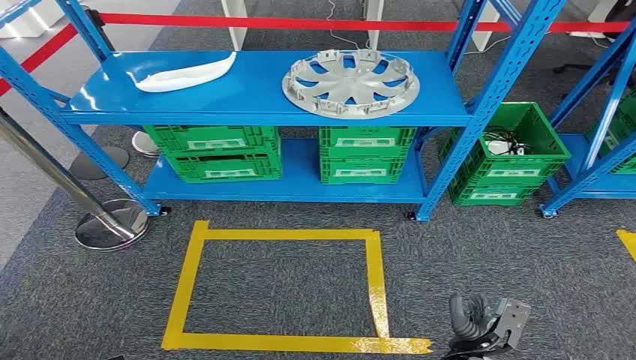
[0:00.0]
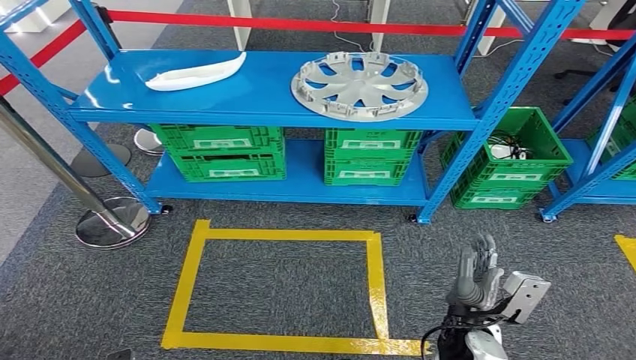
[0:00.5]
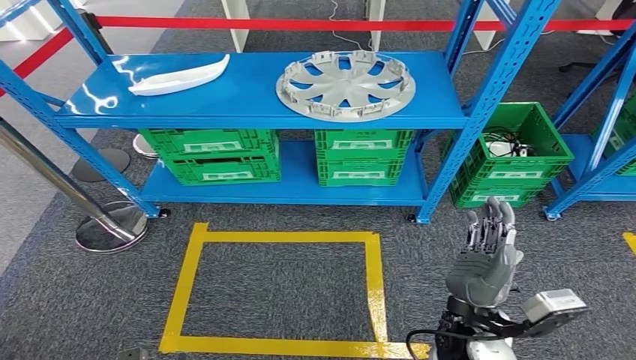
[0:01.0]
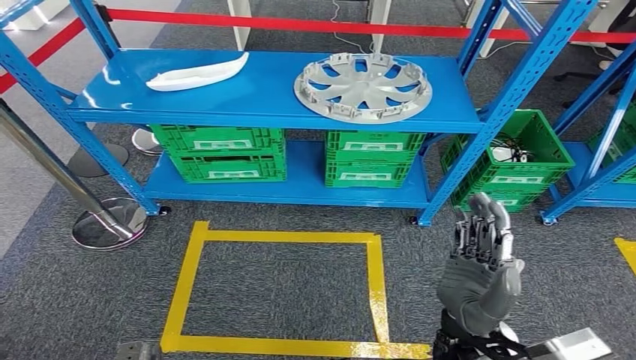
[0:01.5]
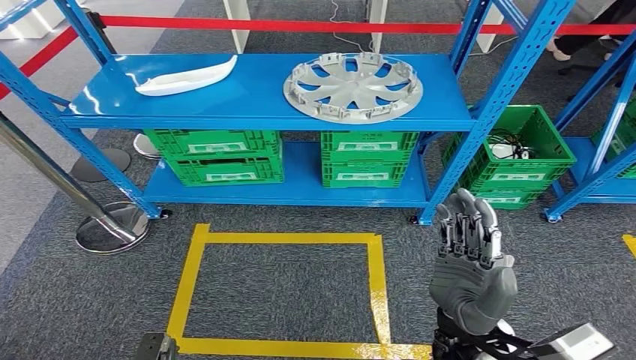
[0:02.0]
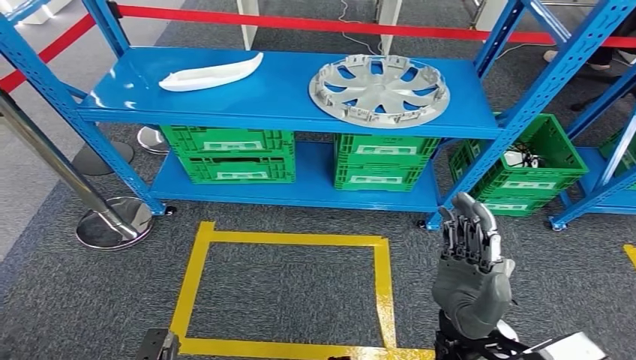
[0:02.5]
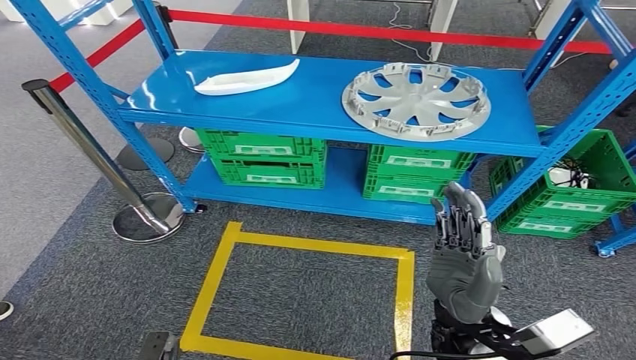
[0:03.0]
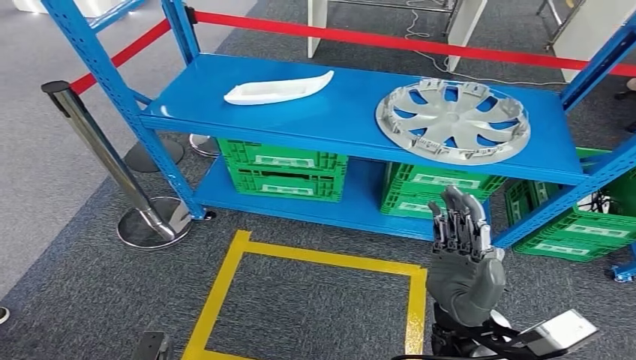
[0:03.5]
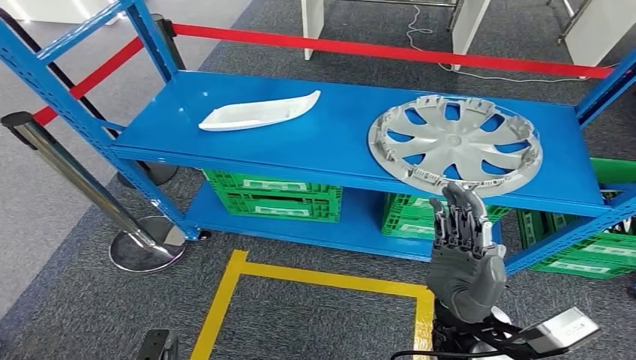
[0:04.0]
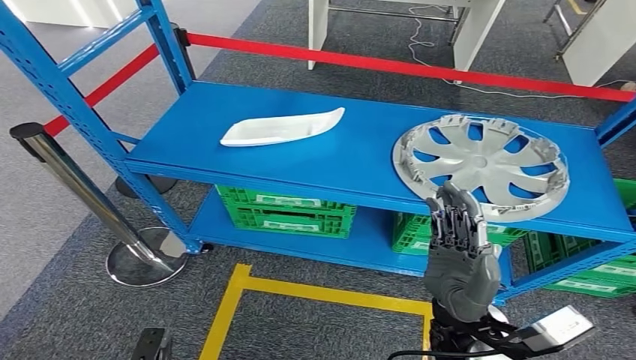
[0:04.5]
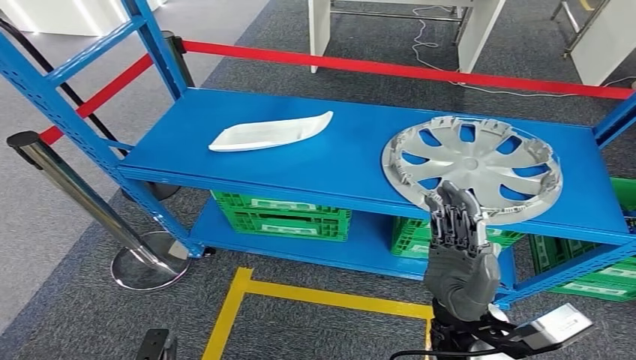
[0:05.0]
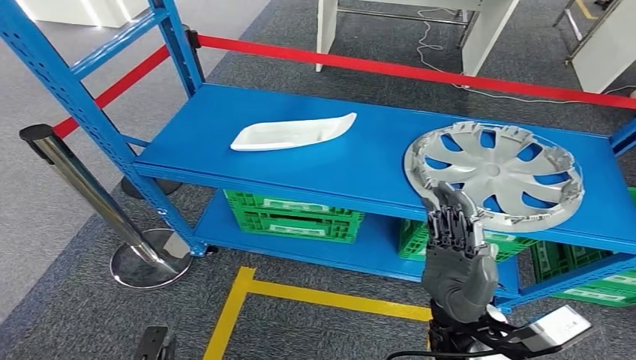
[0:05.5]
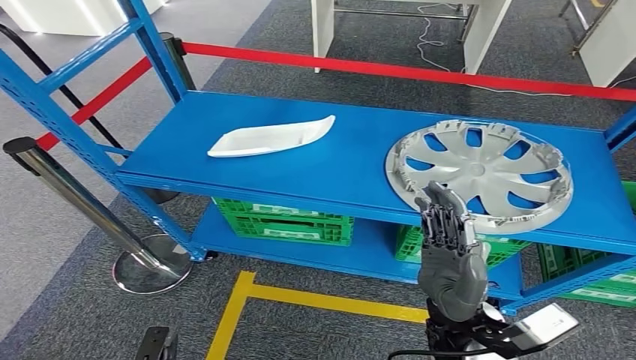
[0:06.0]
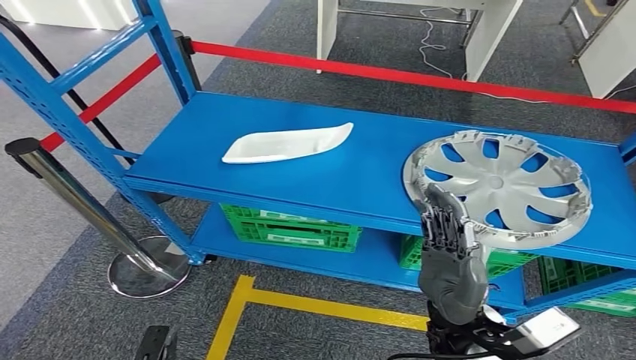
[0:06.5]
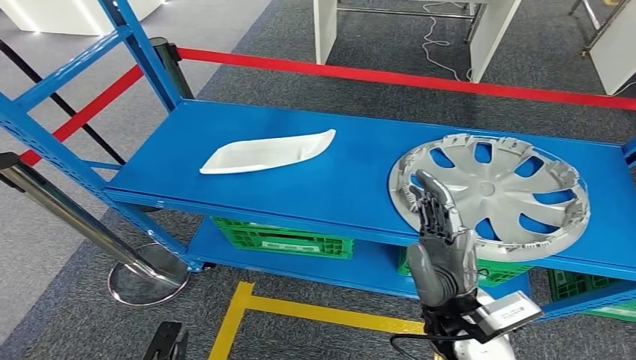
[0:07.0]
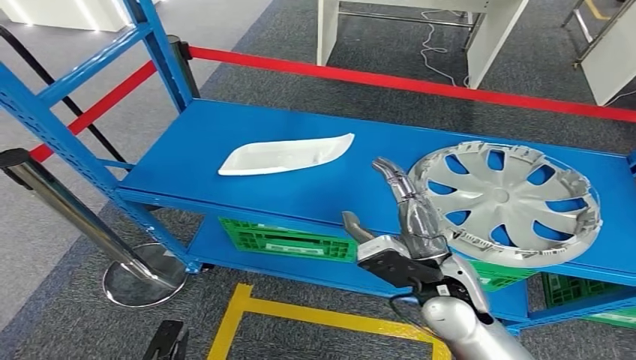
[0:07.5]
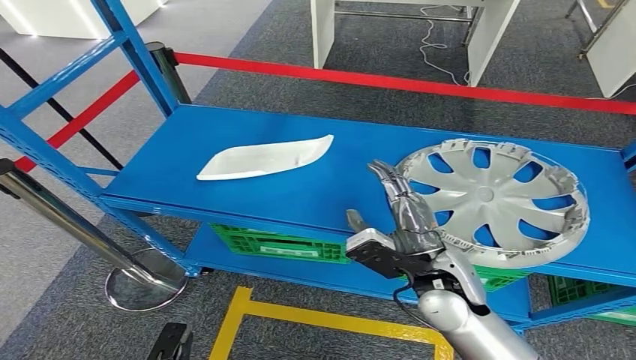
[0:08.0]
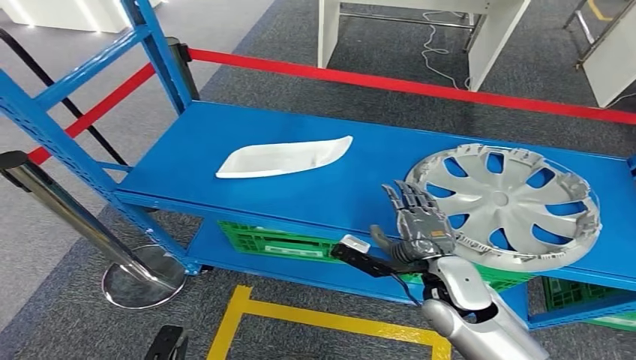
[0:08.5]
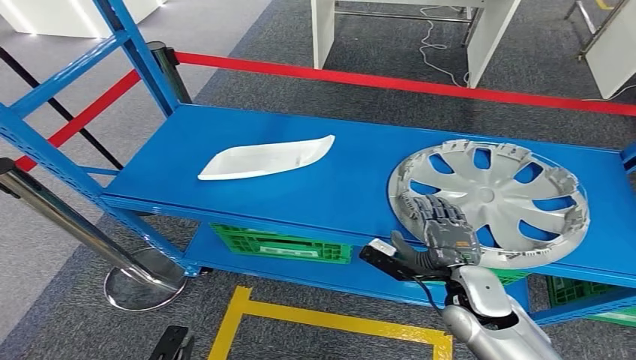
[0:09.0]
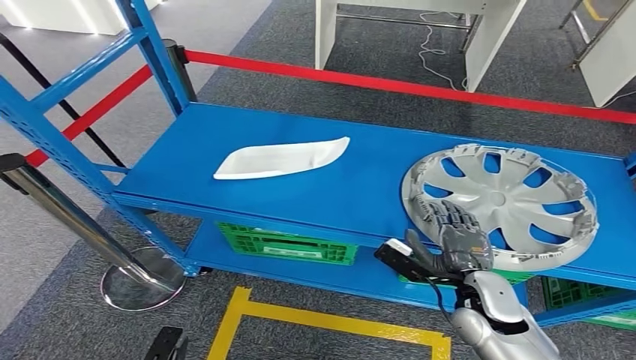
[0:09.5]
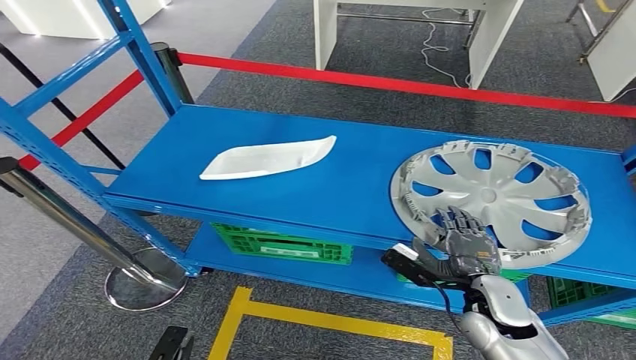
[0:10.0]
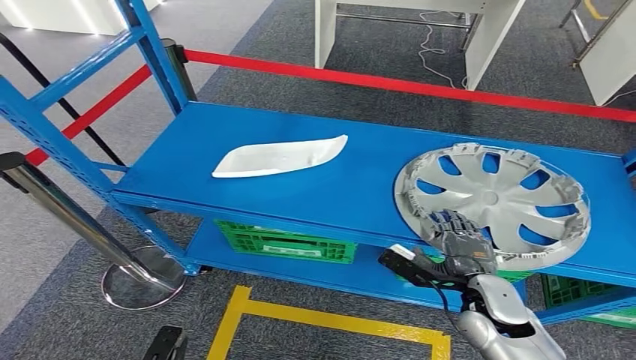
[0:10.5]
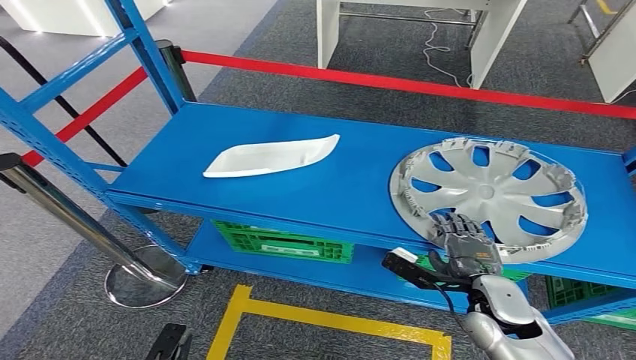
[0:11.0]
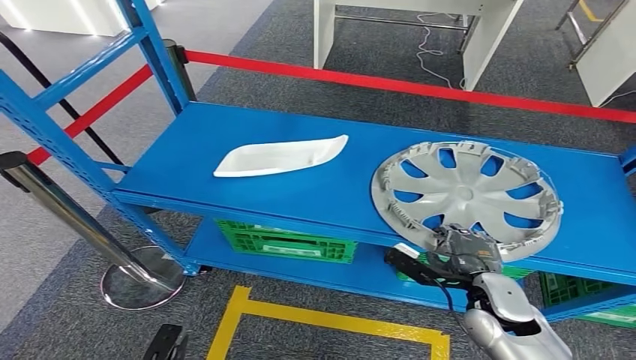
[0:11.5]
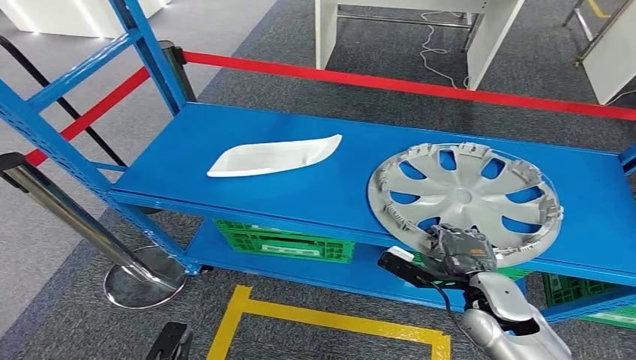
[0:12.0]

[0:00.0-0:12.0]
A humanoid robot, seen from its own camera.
0:08.0 to 0:10.0: The right hand shifts about 10 cm to the right and downward.
0:10.0 to 0:12.0: The hands make only small movements.

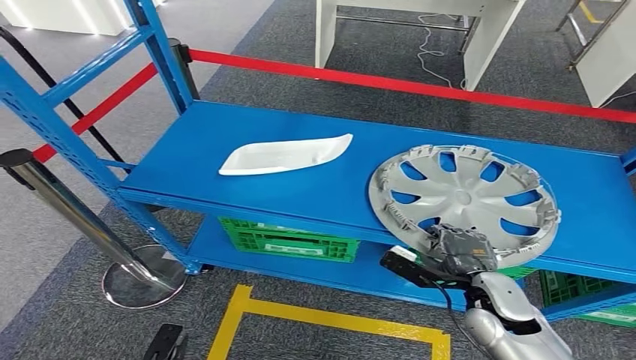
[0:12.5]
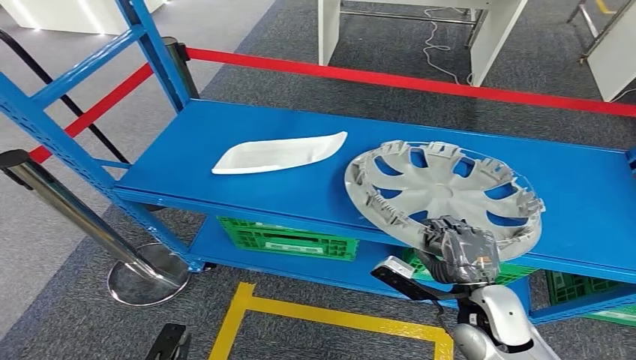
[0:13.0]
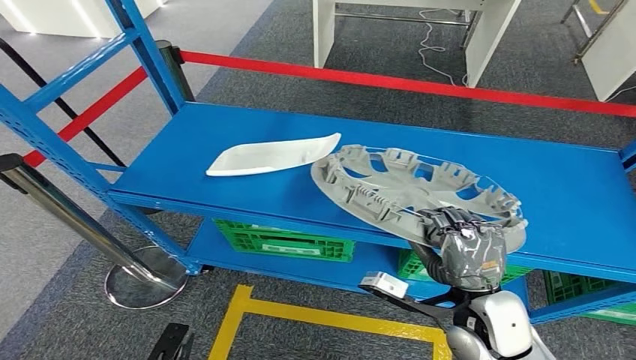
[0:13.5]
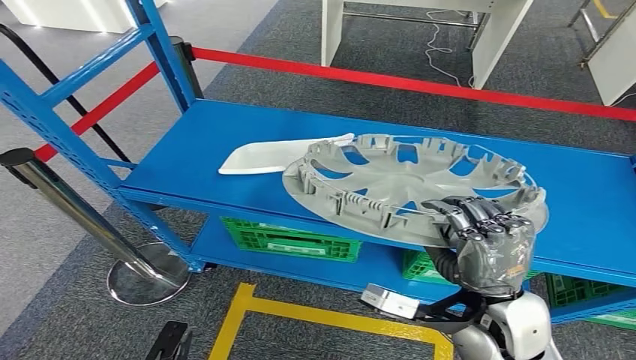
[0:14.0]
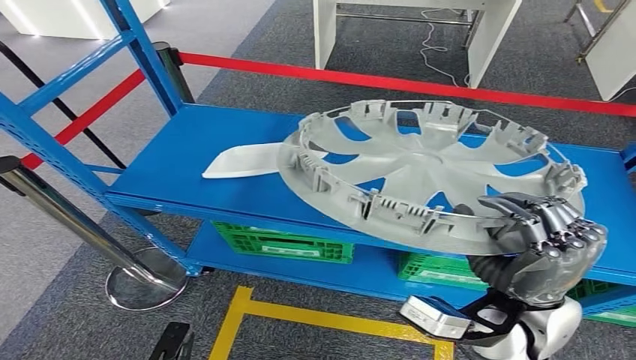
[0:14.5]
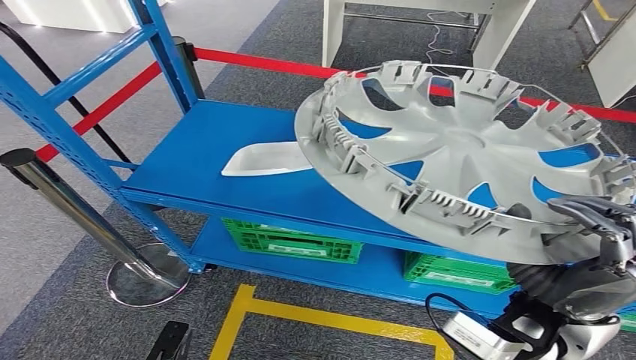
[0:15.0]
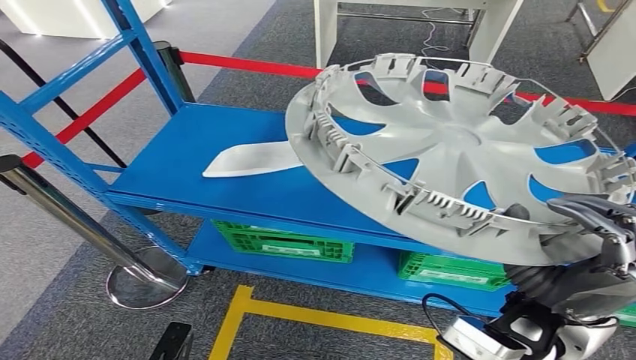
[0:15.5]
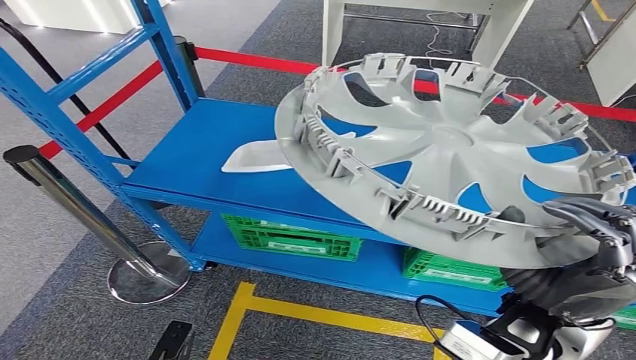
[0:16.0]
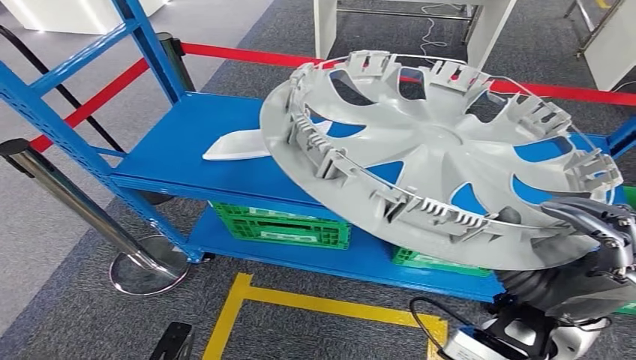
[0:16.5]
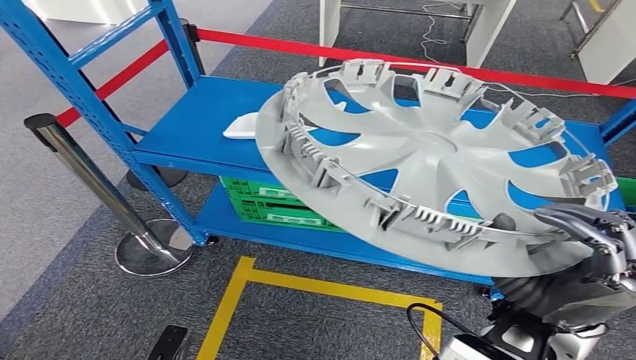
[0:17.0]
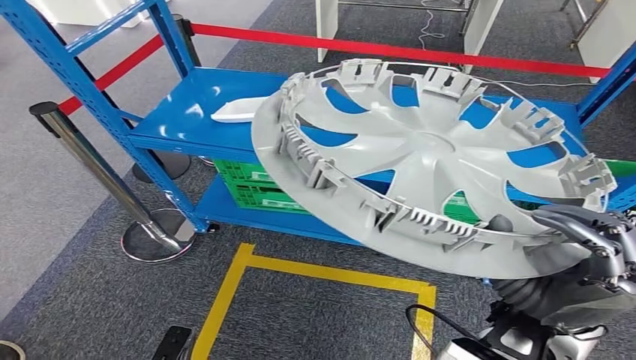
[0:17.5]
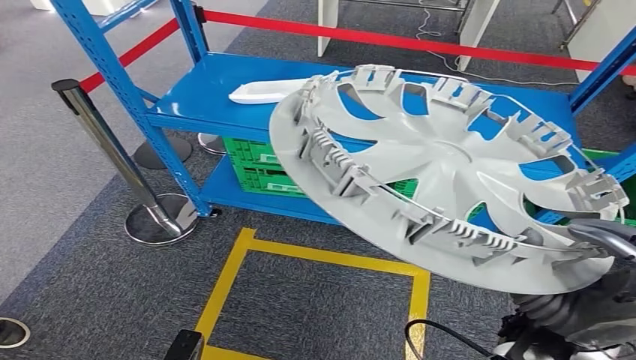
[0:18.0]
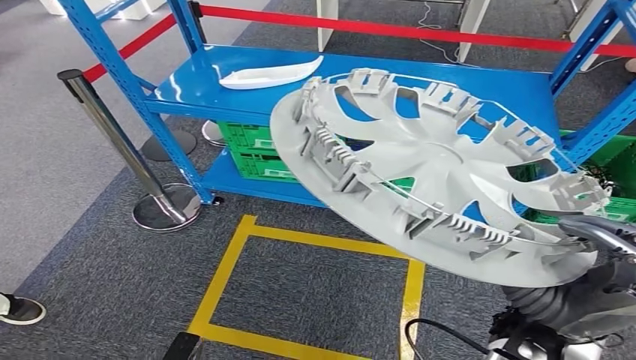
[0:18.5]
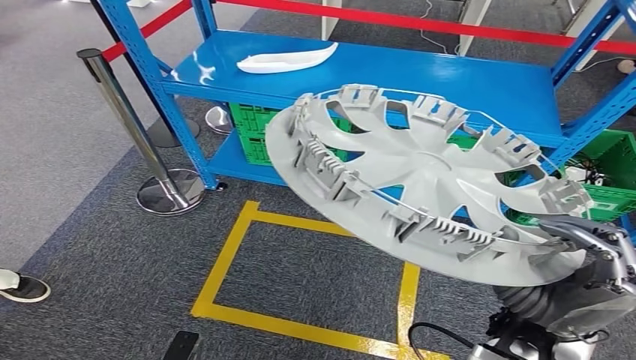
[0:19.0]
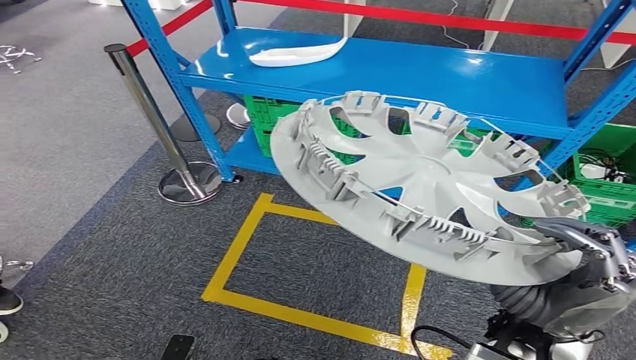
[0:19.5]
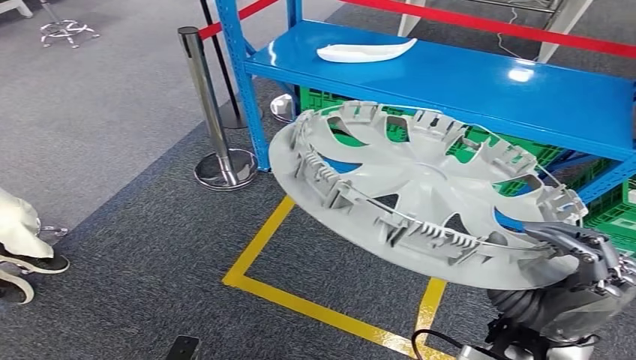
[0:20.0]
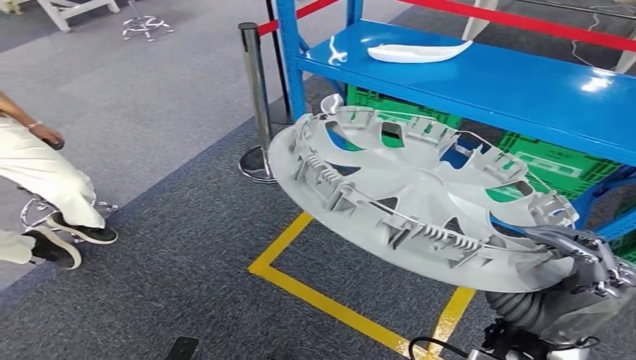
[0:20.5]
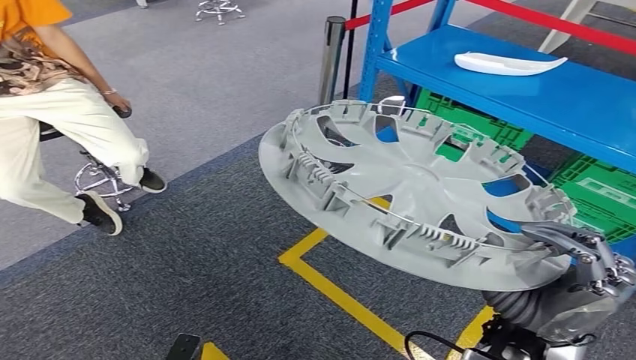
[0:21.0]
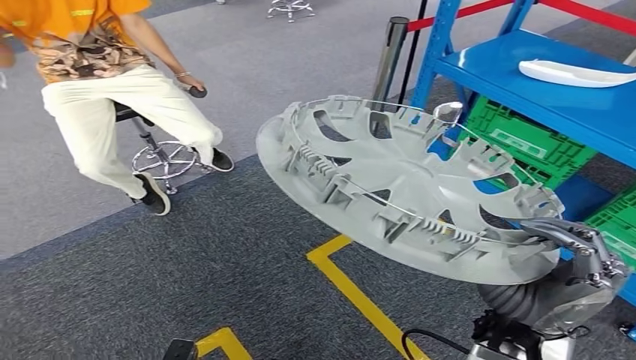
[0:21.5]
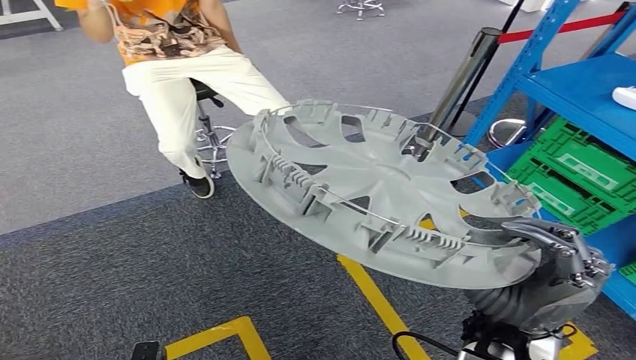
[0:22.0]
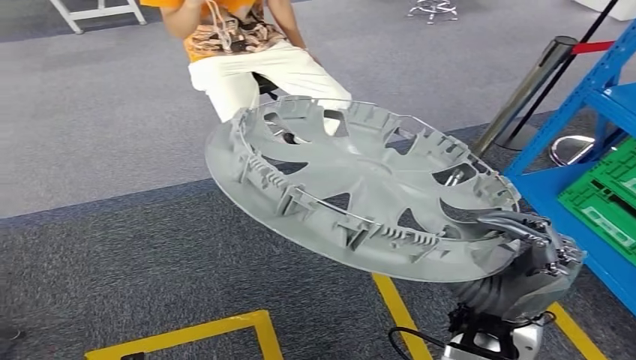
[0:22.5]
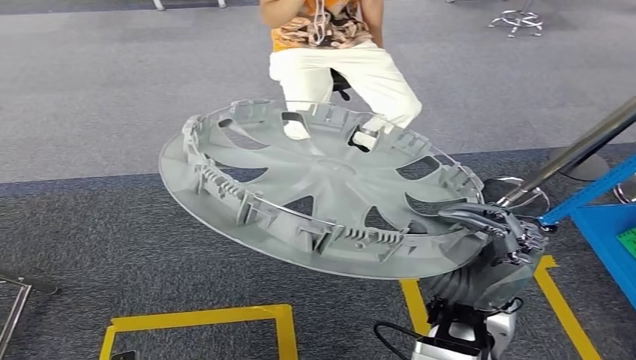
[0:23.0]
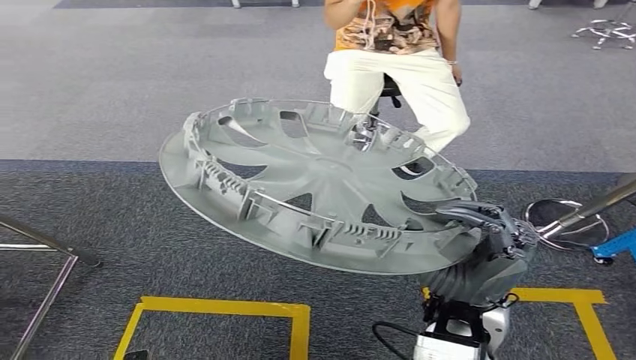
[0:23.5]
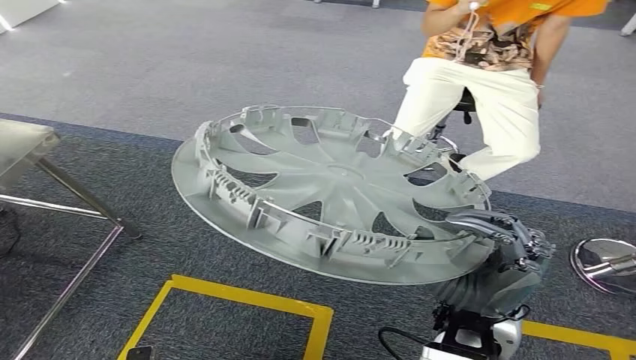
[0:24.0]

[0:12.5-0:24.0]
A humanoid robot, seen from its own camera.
Step, 0:12.5 to 0:15.0: Pick up the small component from the shelf.
